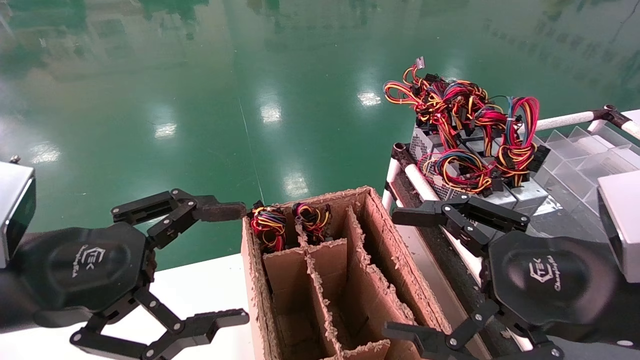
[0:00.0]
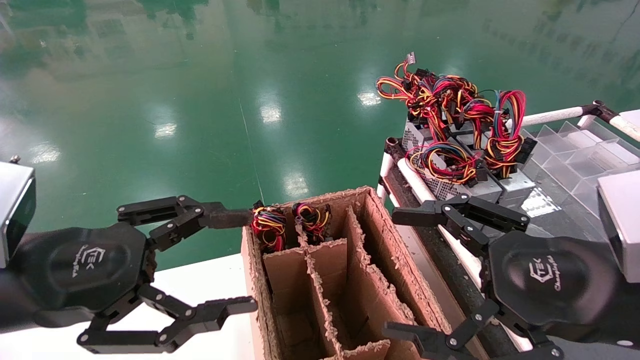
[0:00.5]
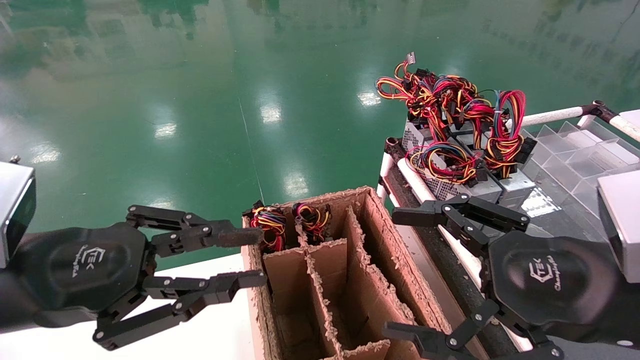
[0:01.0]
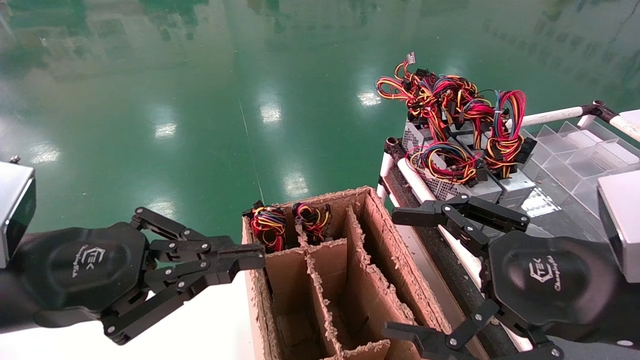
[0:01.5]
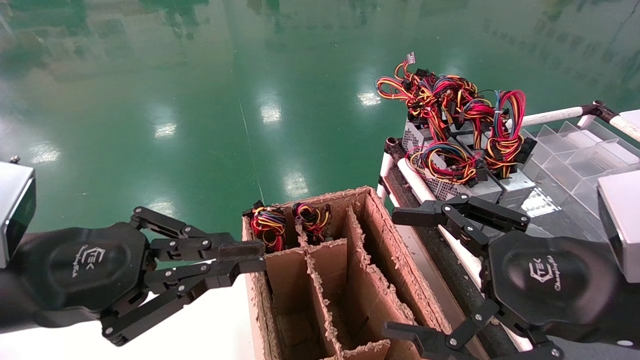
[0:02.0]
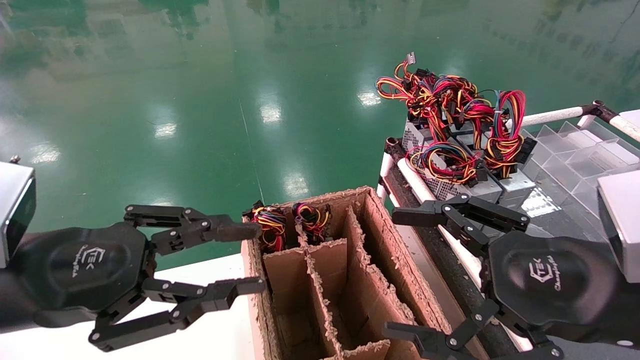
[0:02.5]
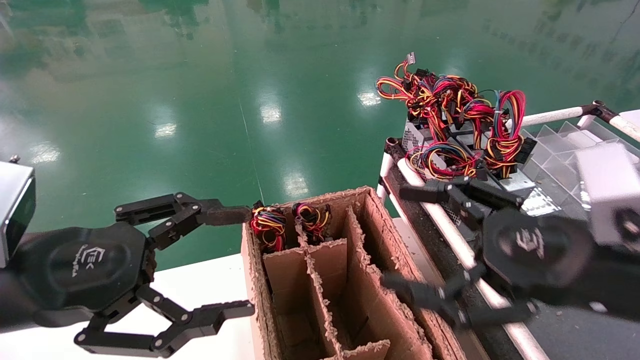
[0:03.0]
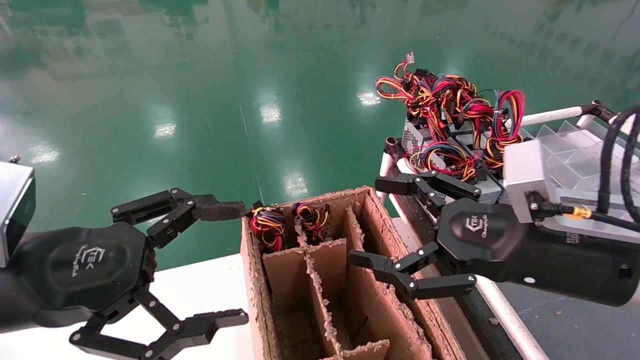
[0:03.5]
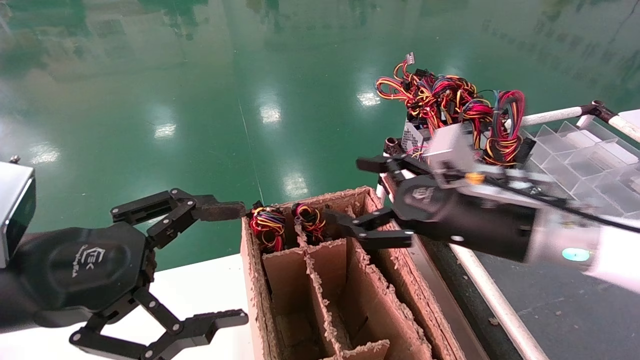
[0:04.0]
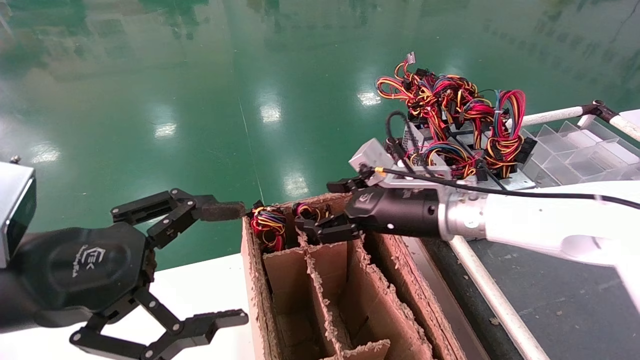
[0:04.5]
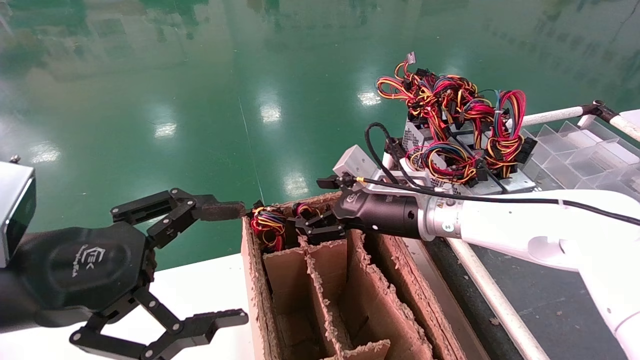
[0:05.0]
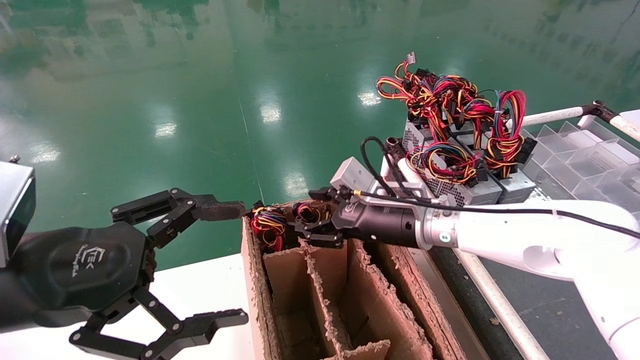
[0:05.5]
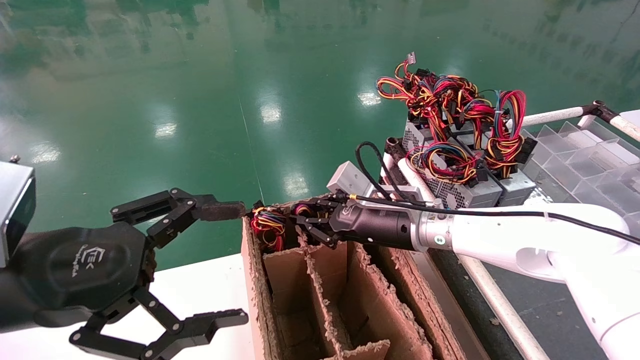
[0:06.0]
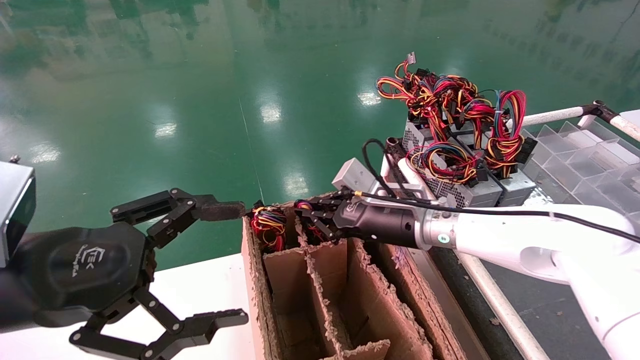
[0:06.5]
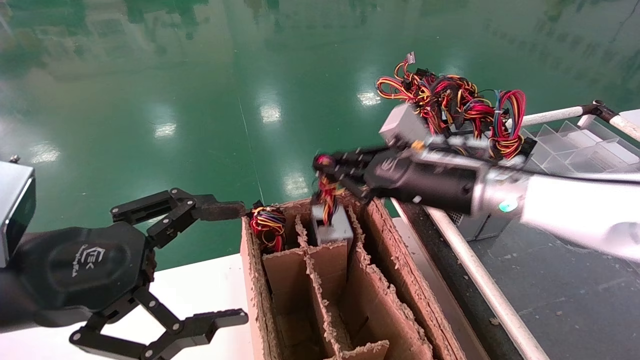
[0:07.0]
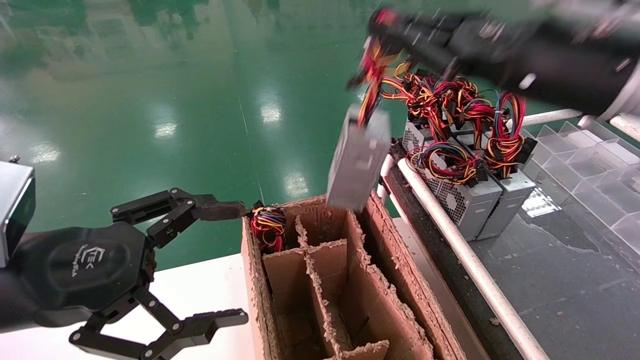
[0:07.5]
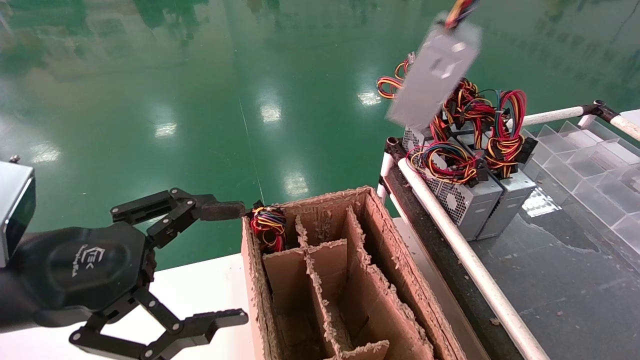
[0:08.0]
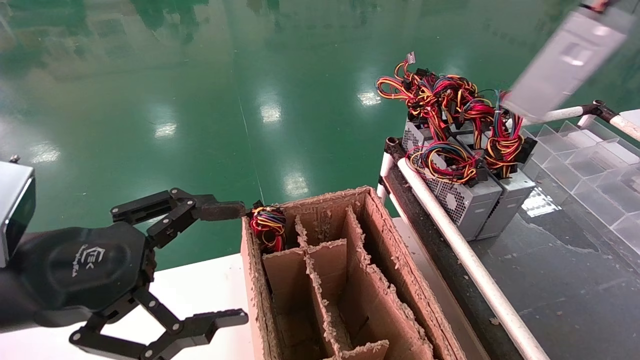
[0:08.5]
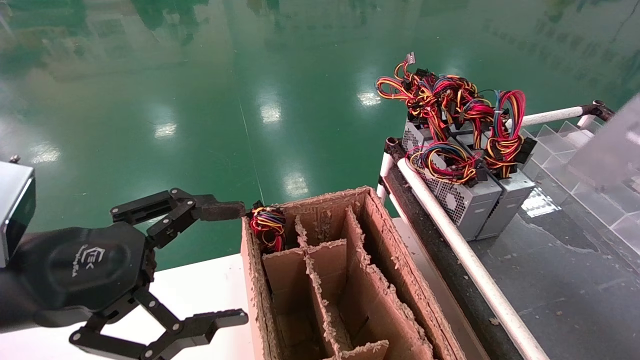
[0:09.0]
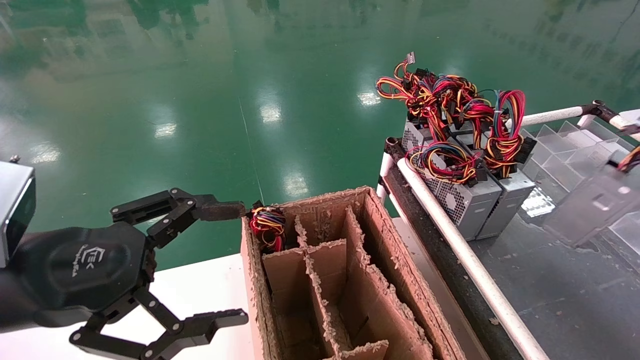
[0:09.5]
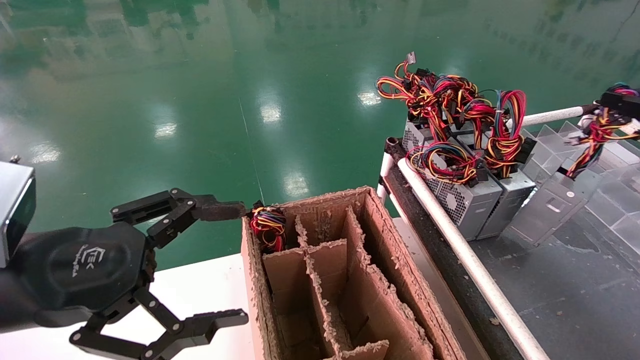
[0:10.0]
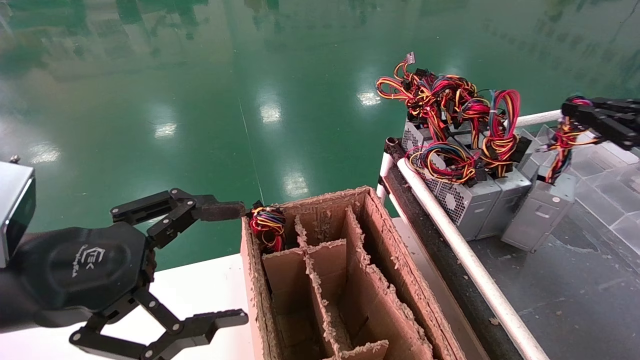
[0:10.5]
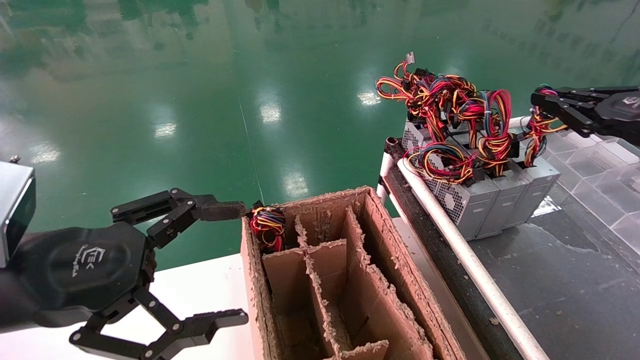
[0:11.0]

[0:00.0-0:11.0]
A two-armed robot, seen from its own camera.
Step, 0:01.5 to 0:06.0: Grab and lift the power supply from the large box.
0:00.0 to 0:02.0: The left gripper closes up.
0:02.0 to 0:03.5: The right gripper shifts some 5 cm forward. The left gripper opens up.
0:03.5 to 0:05.5: The right gripper shifts approximately 20 cm forward and to the left.
0:05.5 to 0:07.5: The right gripper is displaced upward, to the right and backward by about 25 cm, and closes up.
0:07.5 to 0:09.0: The right gripper is displaced to the right and backward by about 30 cm.
0:09.0 to 0:11.0: The right gripper goes some 15 cm forward, to the left and downward.

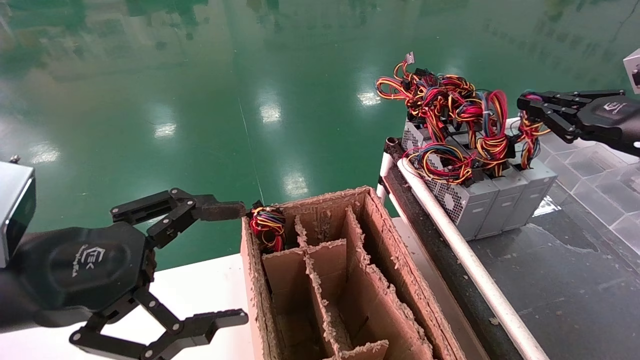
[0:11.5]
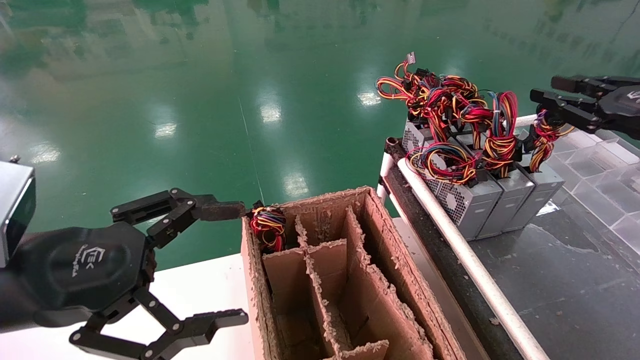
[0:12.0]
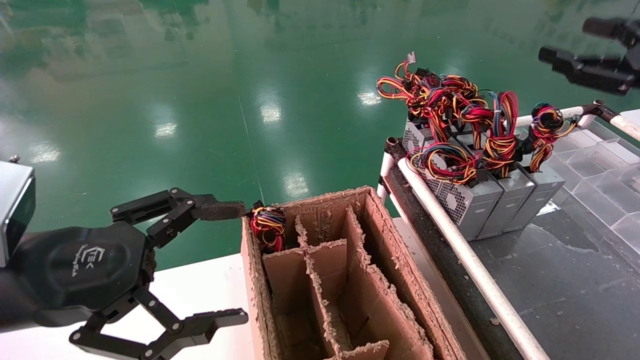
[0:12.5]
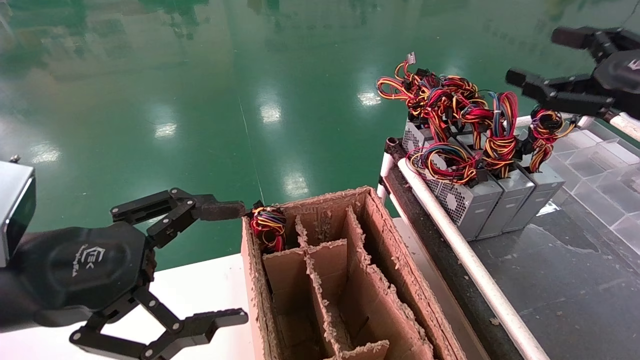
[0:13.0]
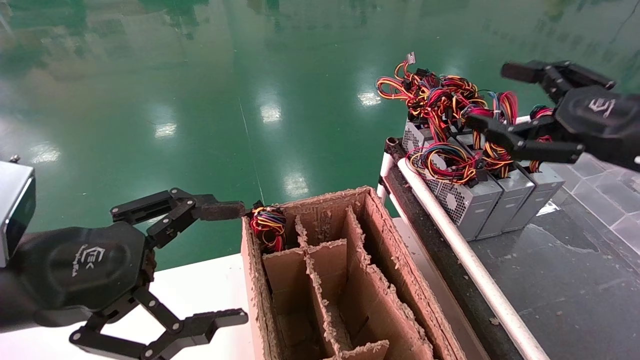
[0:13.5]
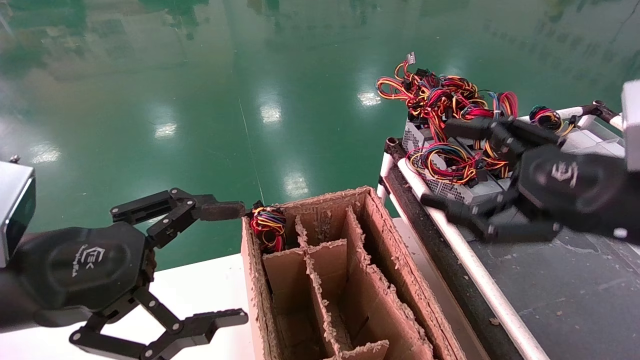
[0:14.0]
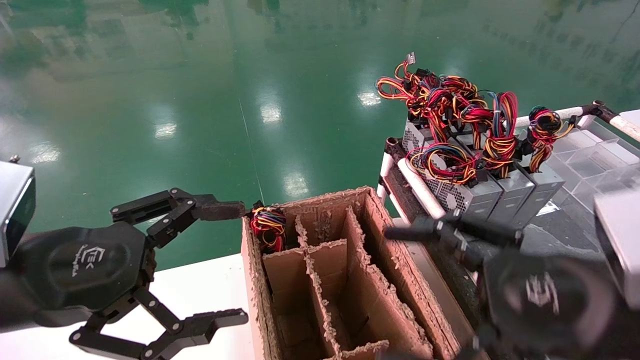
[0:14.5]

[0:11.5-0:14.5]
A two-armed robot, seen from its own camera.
0:11.5 to 0:13.0: The right gripper ends up approximately 5 cm from where it was, and opens.
0:13.0 to 0:14.5: The right gripper travels to the left, backward and downward by roughly 20 cm.

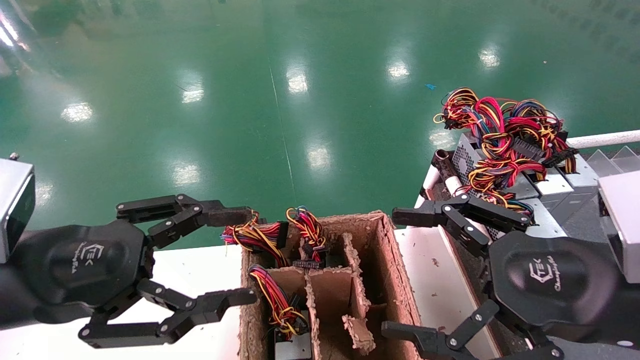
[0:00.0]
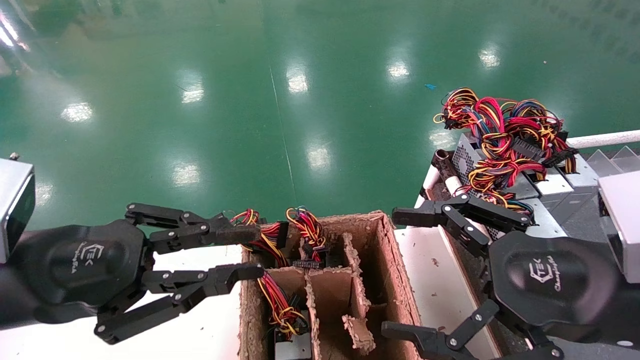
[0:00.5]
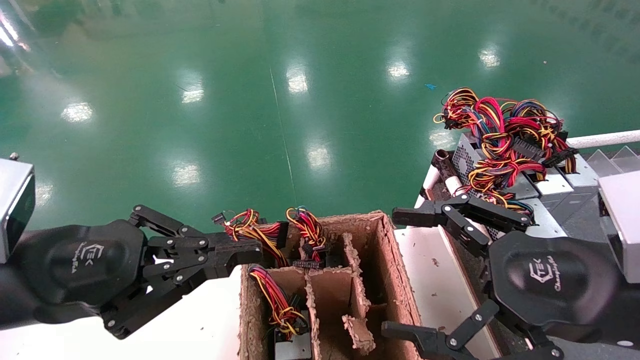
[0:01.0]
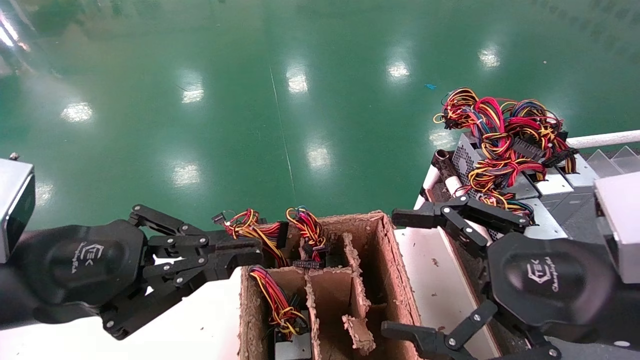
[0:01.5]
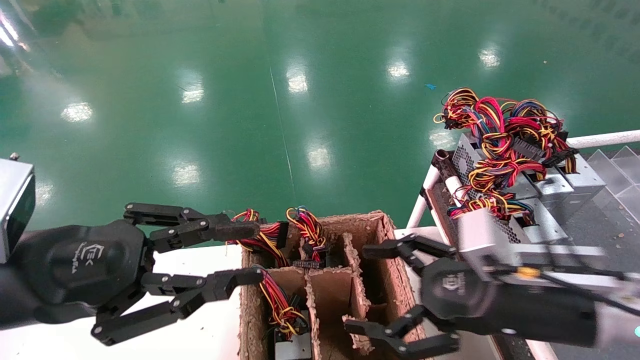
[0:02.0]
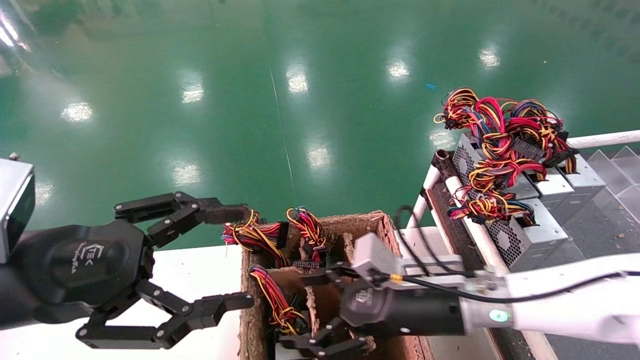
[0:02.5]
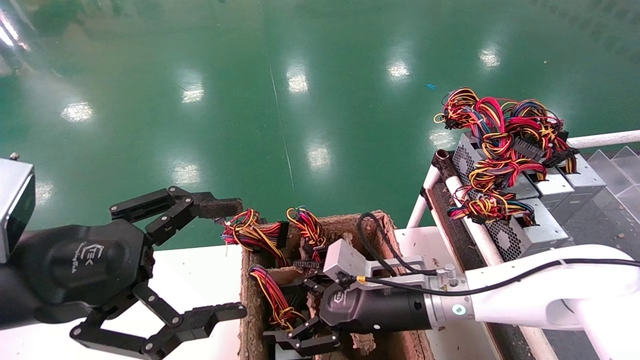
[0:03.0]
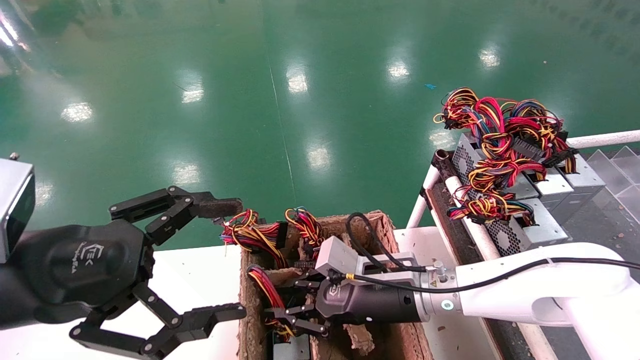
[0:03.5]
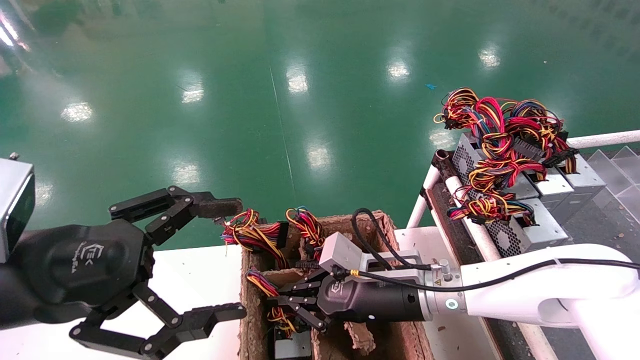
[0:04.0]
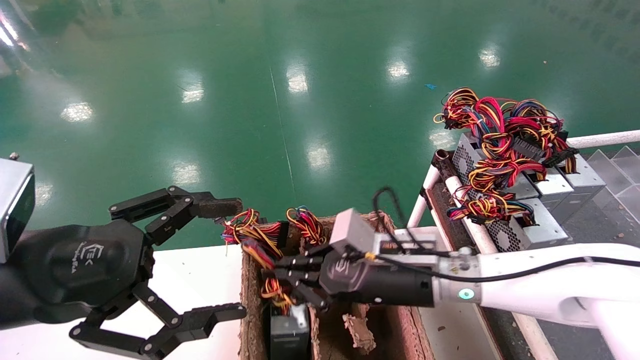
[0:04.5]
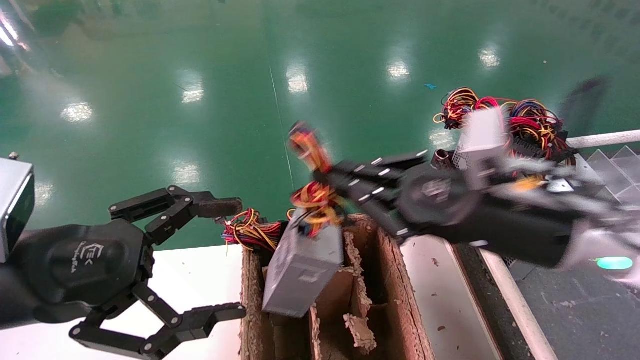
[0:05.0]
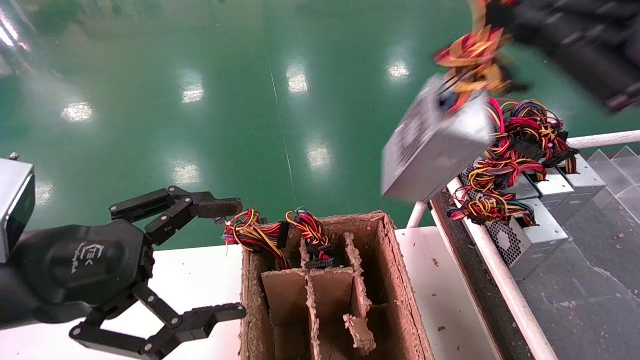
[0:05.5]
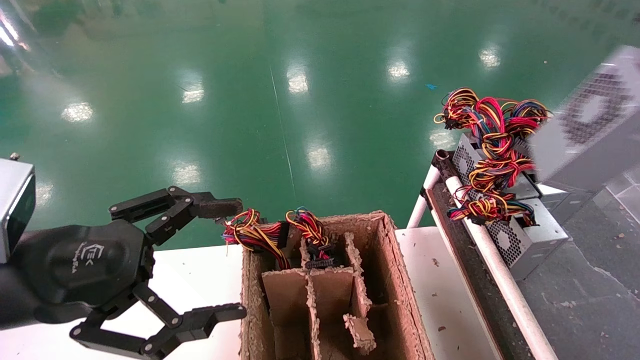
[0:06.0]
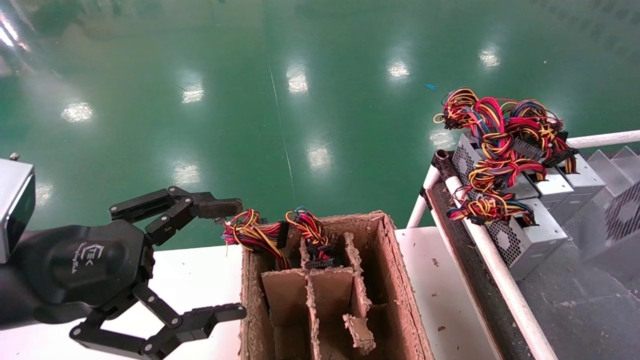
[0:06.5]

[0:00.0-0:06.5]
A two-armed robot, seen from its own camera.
Step, 0:02.0 to 0:04.0: Grab and lift the power supply from the large box.
0:00.0 to 0:02.0: The right gripper is displaced forward and downward by roughly 10 cm. Meanwhile the left gripper closes its fingers.
0:02.0 to 0:04.5: The left gripper opens. The right gripper is displaced to the left and forward by some 15 cm, and closes its fingers.
0:04.5 to 0:06.5: The right gripper heads to the right, backward and upward, covering about 50 cm.
